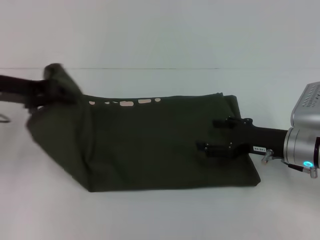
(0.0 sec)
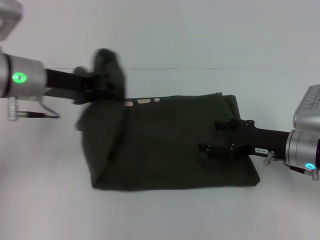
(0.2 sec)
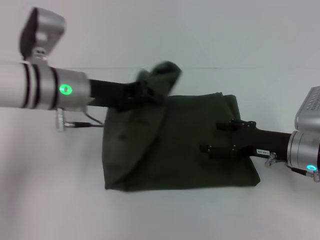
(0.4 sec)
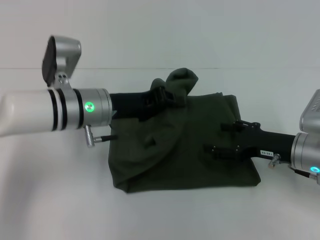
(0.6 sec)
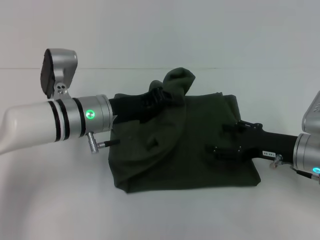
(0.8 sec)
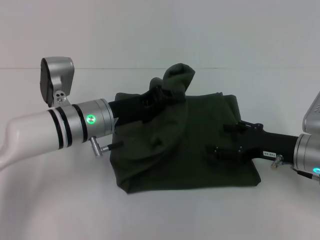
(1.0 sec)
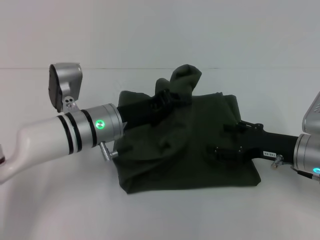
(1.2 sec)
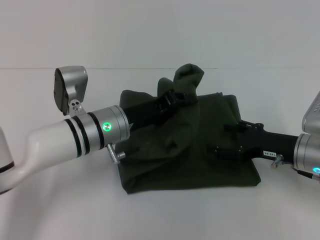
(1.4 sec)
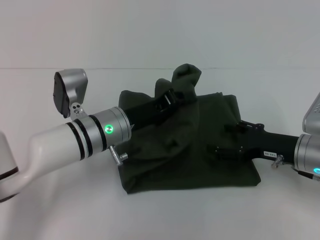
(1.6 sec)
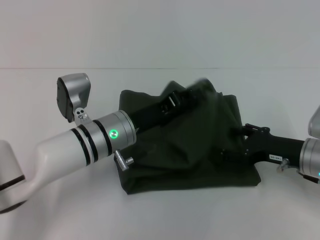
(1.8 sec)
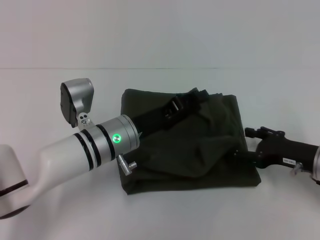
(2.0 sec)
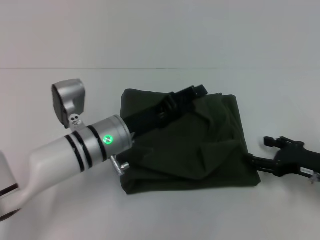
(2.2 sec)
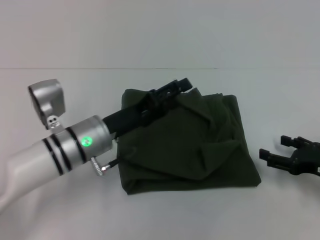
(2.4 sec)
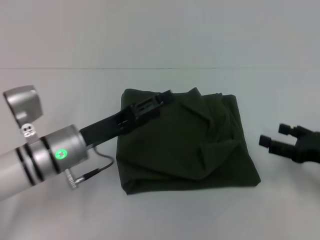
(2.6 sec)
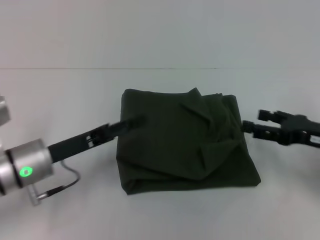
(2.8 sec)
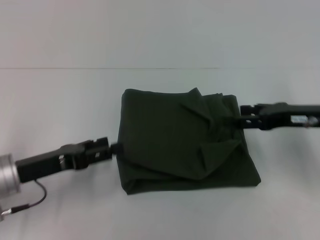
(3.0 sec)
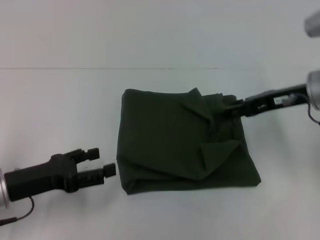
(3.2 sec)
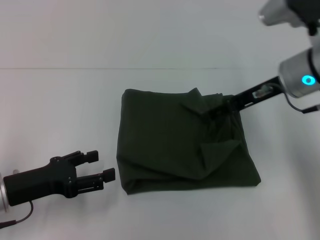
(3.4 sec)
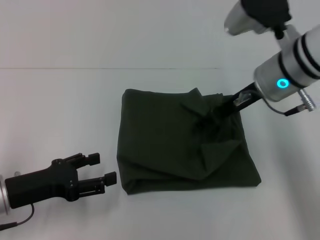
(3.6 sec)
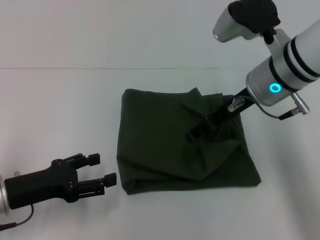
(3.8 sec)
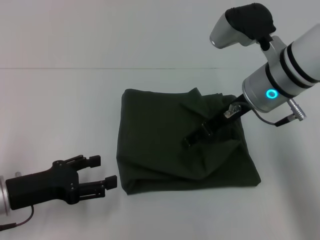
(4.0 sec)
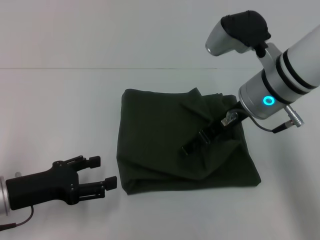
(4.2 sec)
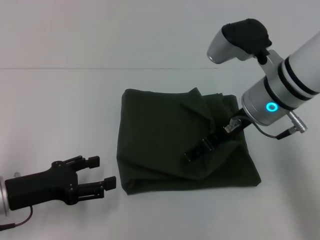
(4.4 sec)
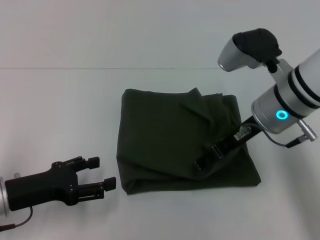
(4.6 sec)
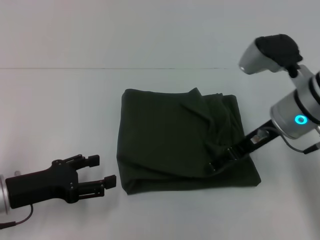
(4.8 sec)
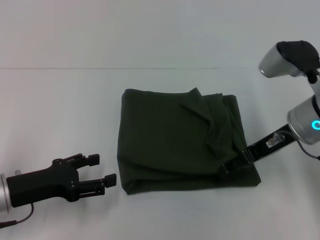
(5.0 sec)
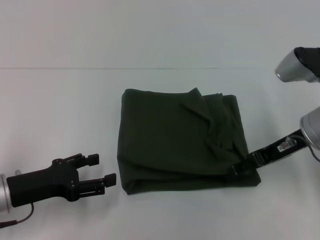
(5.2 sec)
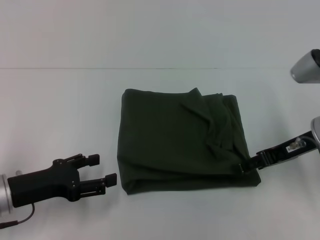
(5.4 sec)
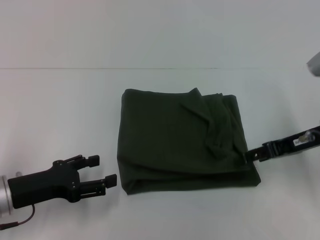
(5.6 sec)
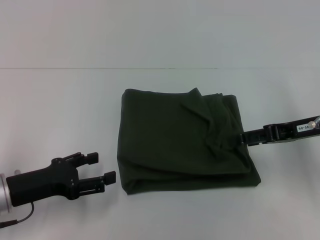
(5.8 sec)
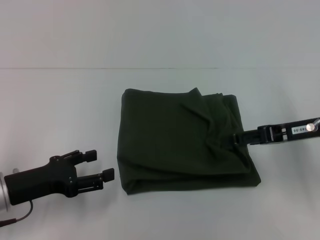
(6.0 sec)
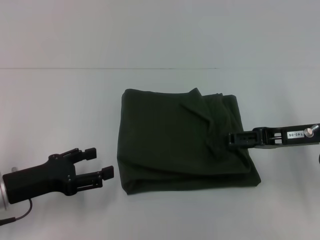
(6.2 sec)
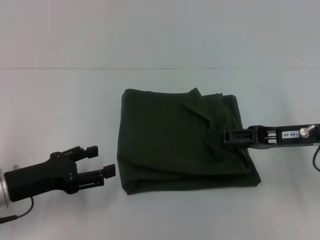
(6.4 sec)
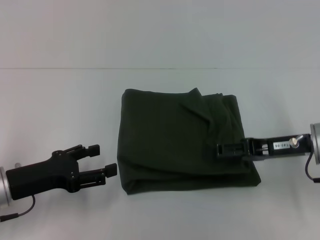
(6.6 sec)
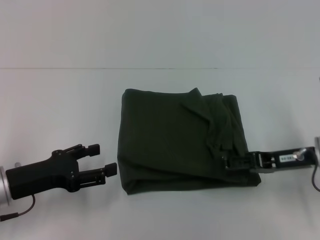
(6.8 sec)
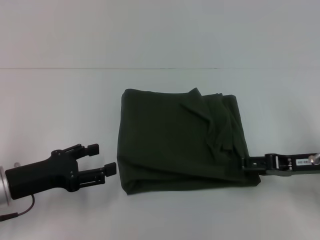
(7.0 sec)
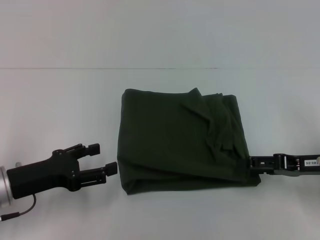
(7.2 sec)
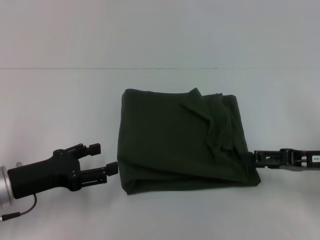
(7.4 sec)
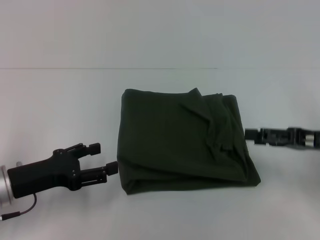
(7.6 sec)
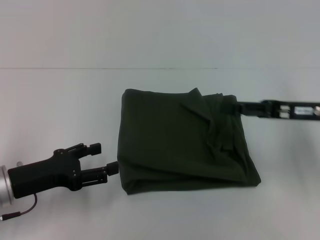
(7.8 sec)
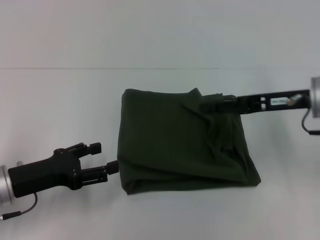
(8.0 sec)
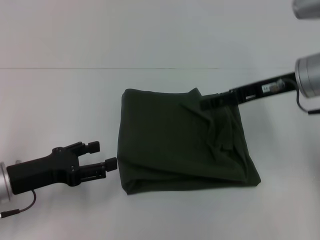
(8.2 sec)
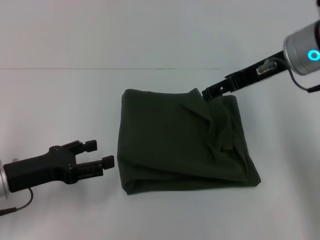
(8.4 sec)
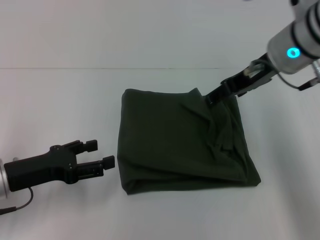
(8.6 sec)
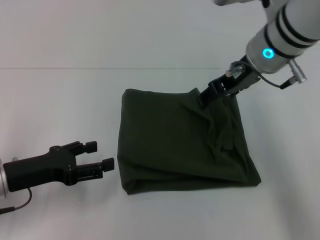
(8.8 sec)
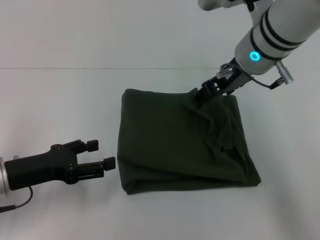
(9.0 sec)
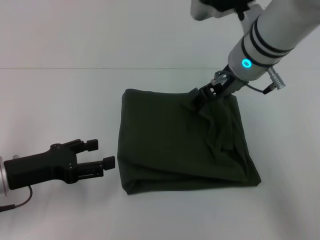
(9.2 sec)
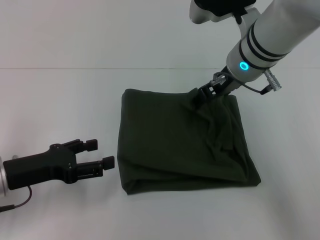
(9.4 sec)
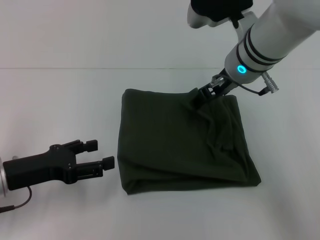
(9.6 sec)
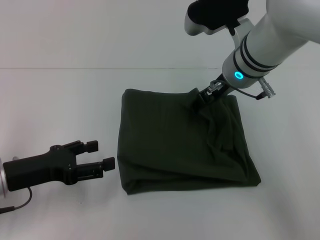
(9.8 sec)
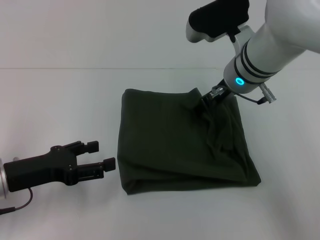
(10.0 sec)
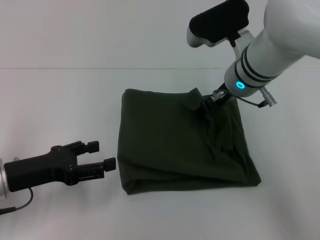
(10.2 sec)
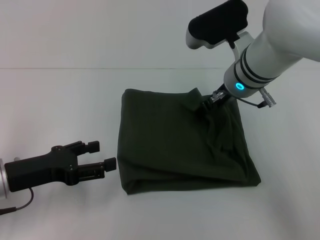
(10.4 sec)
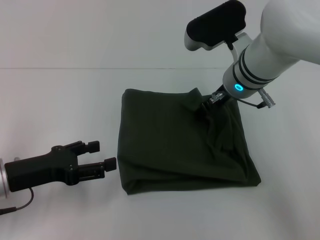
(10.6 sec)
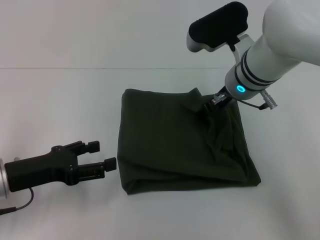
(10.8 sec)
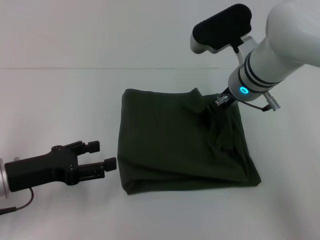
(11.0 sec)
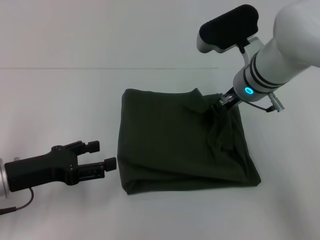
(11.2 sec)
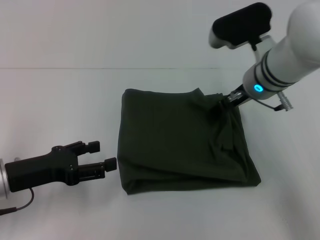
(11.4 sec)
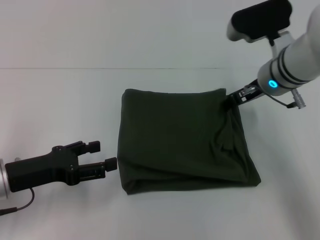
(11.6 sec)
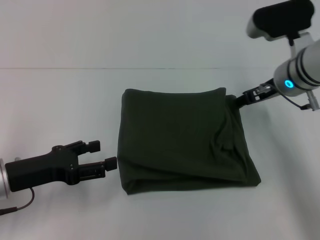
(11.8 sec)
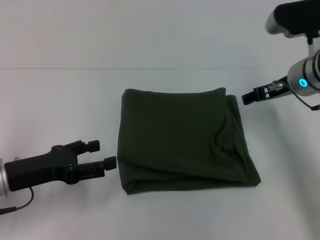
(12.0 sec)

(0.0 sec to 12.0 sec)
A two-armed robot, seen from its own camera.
Step, 0.0 sec - 2.0 sec: Fold the clothes with your left hand.
0.0 sec - 1.6 sec: The left gripper shifts roughly 20 cm to the right and downward.
1.6 sec - 3.0 sec: The left gripper goes roughly 15 cm to the left and backward, and opens. Meanwhile the right gripper shifts some 5 cm upward.
3.0 sec - 4.4 sec: The right gripper shifts about 15 cm to the left.
4.4 sec - 6.0 sec: The right gripper shifts about 10 cm to the right.
6.0 sec - 7.6 sec: The right gripper shifts by roughly 5 cm.
7.6 sec - 9.0 sec: The right gripper is displaced to the left, upward and forward by about 25 cm.
9.0 sec - 10.4 sec: The right gripper shifts some 5 cm downward.
10.4 sec - 12.0 sec: The right gripper shifts roughly 10 cm to the right.

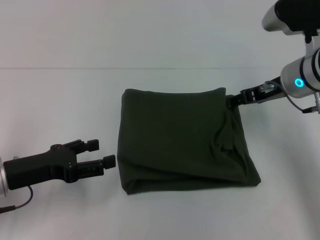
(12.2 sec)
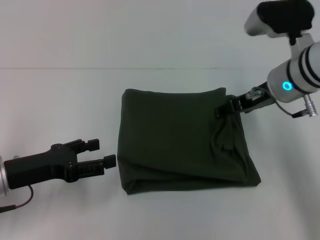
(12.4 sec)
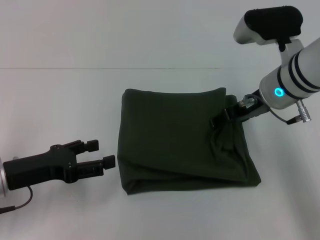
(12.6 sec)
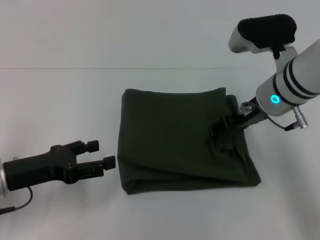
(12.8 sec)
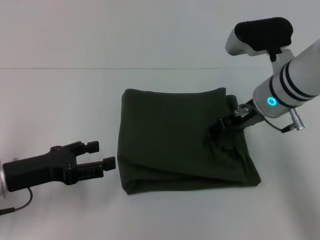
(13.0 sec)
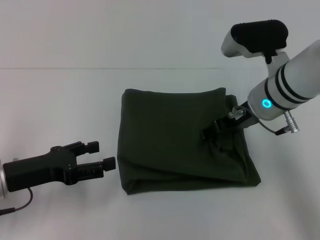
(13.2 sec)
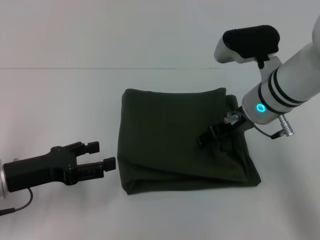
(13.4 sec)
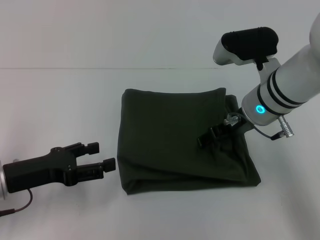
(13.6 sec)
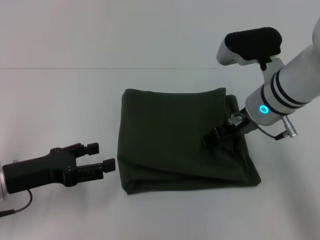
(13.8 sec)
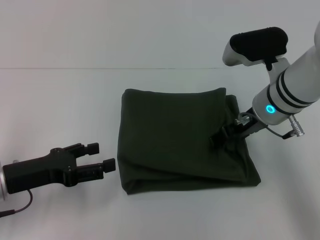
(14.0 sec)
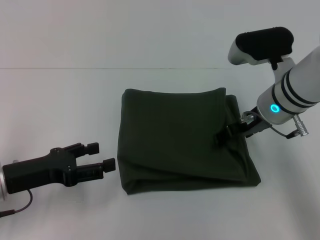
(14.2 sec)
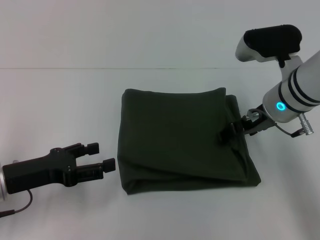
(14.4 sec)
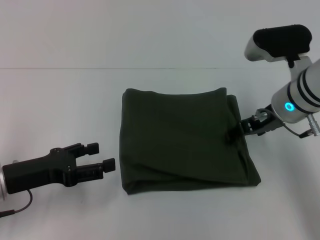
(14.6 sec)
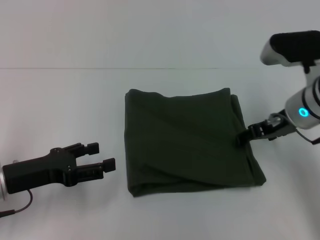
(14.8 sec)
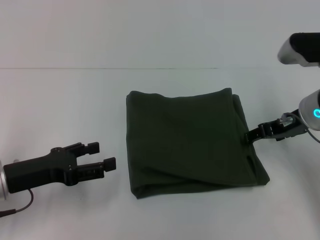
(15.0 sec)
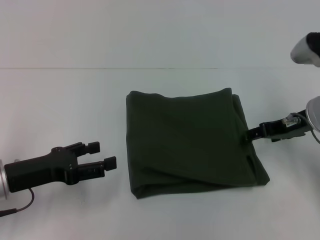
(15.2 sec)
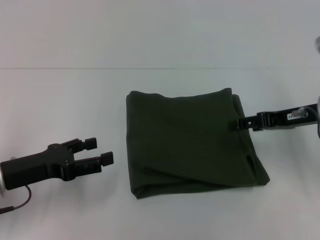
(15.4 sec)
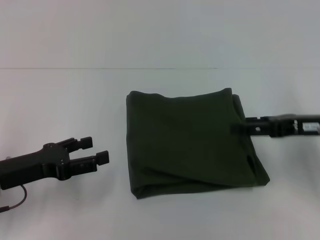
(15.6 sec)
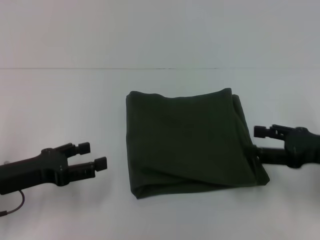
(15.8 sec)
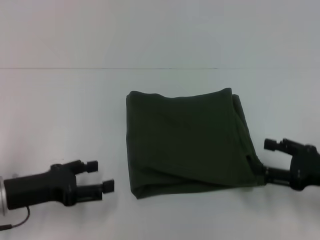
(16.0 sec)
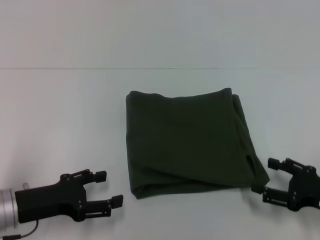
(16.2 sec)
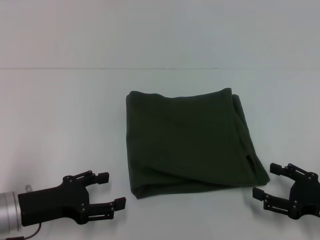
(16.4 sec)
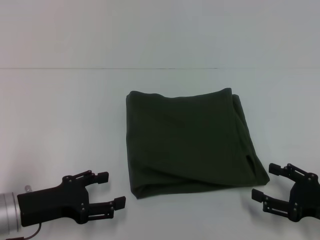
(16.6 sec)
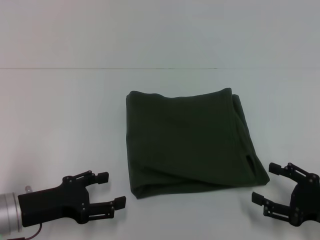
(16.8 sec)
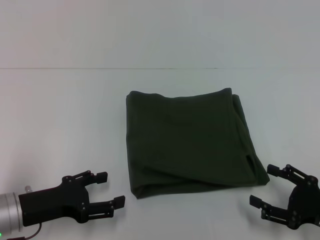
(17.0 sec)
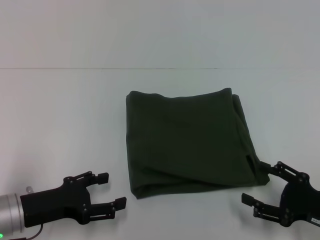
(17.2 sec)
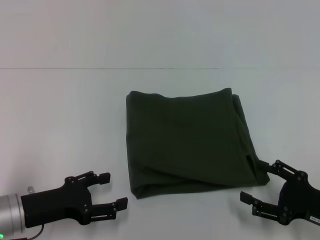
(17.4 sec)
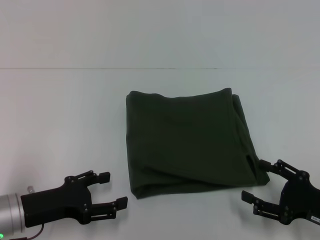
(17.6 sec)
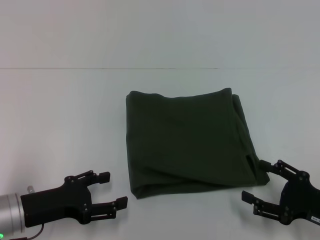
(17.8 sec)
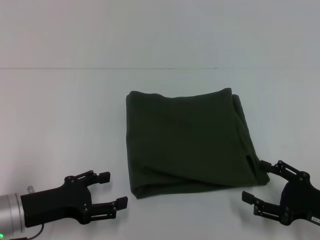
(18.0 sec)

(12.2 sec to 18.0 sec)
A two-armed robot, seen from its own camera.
12.2 sec - 13.6 sec: The right gripper travels to the left by approximately 5 cm.
13.6 sec - 15.0 sec: The right gripper goes roughly 10 cm to the right.
15.0 sec - 16.6 sec: The right gripper is displaced backward, downward and to the right by some 20 cm.
16.6 sec - 18.0 sec: There are only small adjustments of the grippers.
